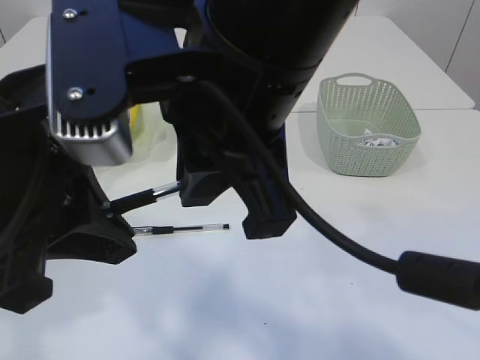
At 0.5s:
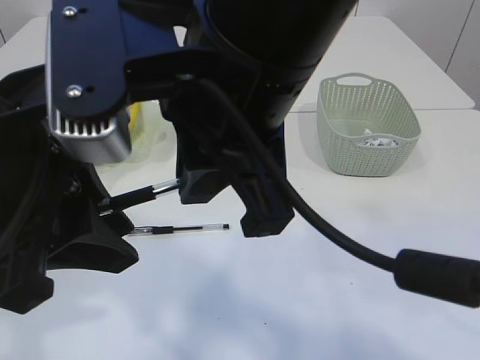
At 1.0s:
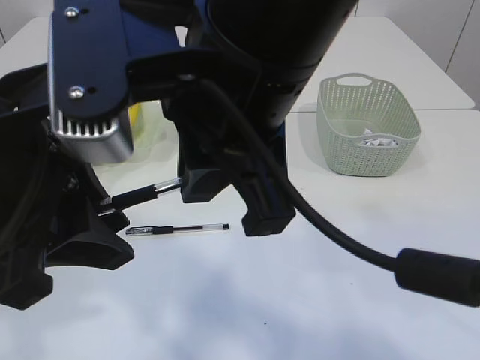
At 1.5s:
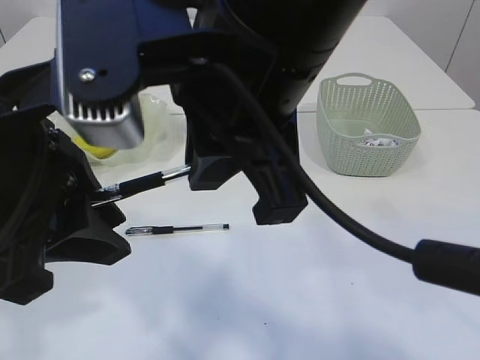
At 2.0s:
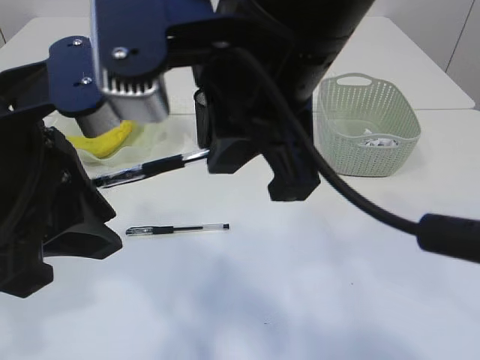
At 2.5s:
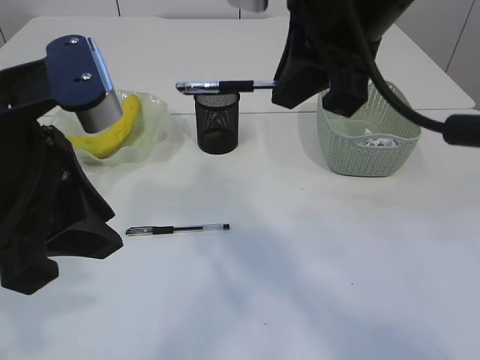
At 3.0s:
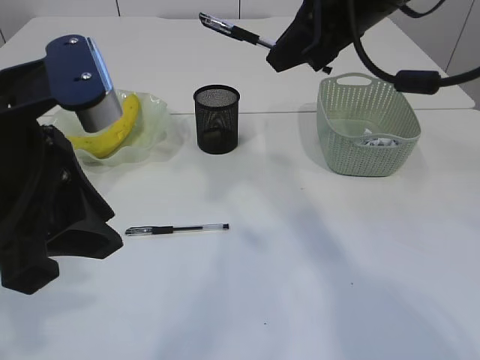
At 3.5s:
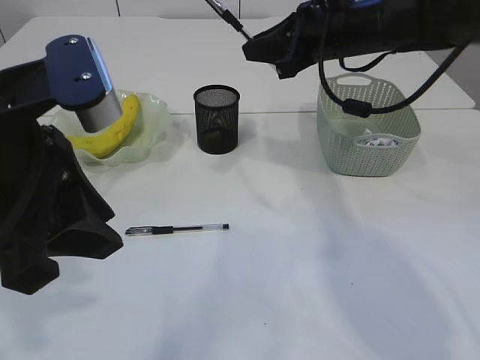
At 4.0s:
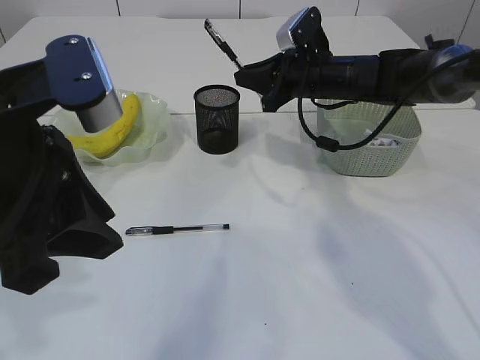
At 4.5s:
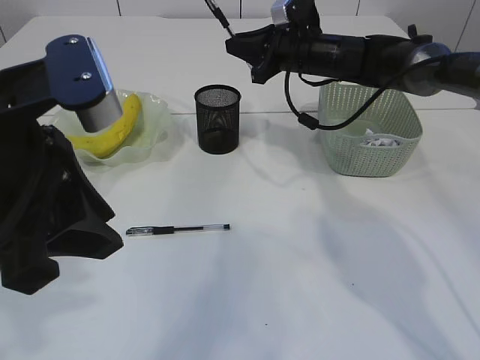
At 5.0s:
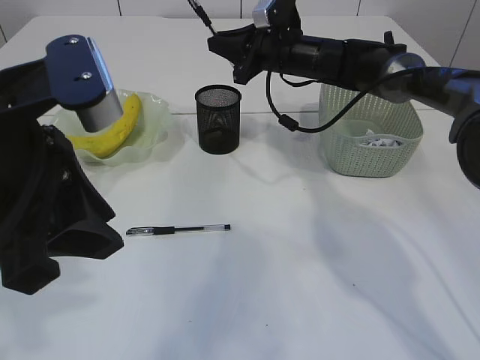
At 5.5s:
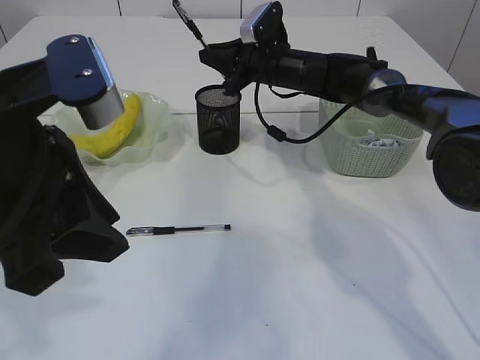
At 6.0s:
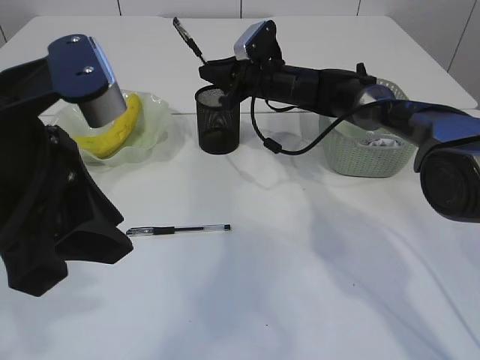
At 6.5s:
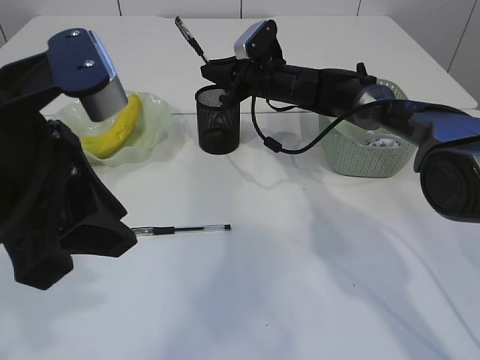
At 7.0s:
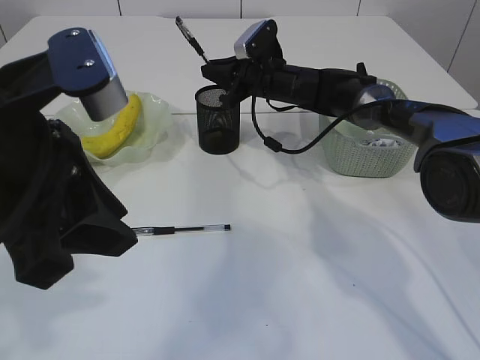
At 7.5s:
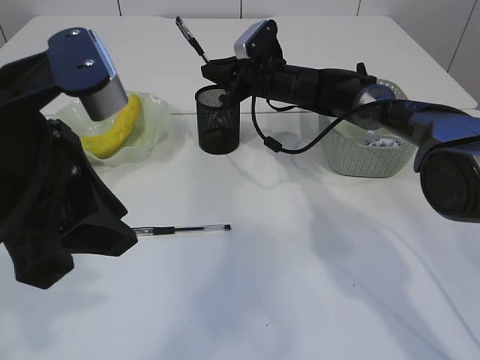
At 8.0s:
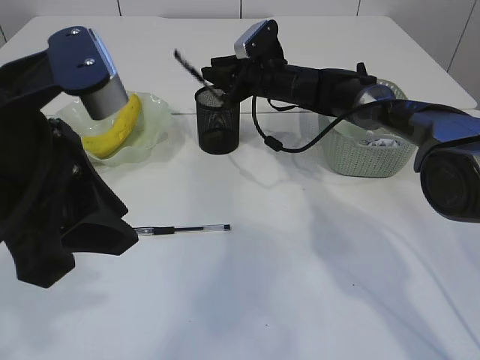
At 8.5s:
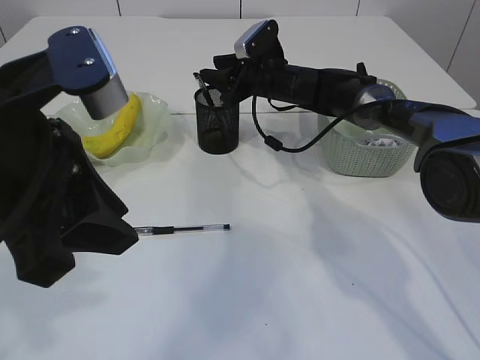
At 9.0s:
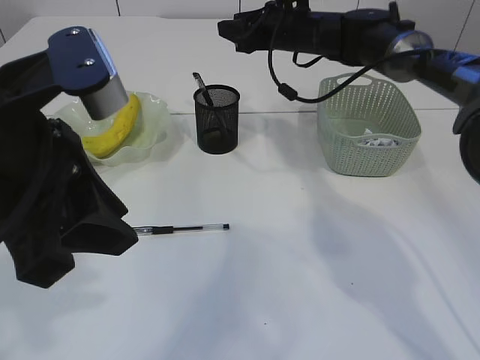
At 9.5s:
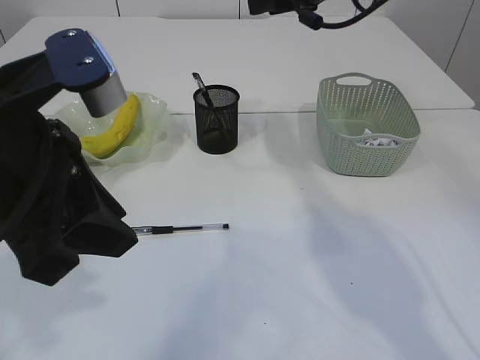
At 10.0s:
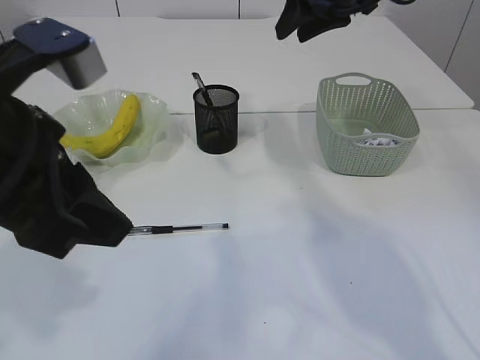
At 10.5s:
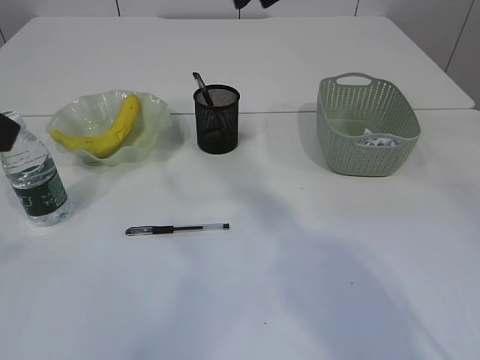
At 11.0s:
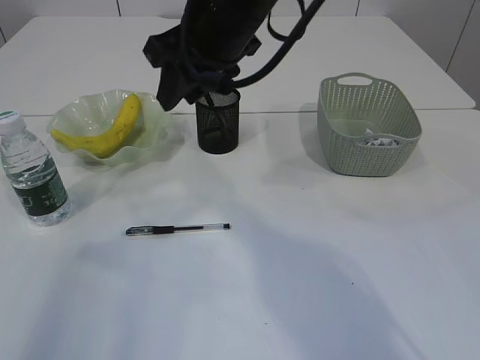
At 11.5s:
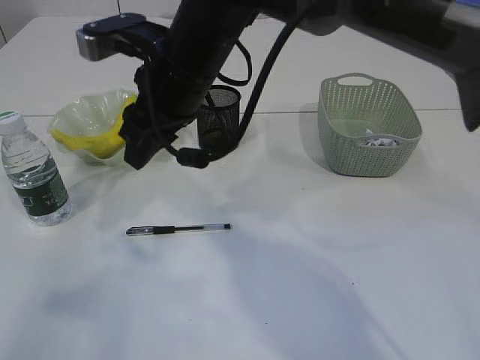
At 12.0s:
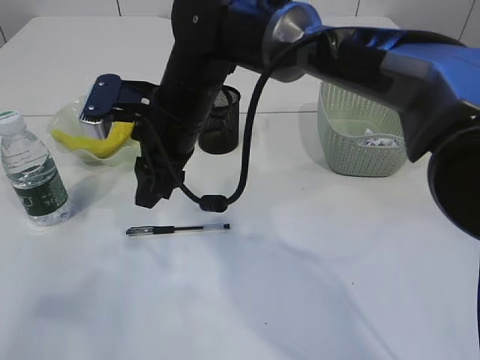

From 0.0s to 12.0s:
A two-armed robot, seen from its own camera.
Step, from 0.0s to 2.0s: transfer the pen to the right arm.
Step, from 2.5s to 8.5s: Place the pen into the pen holder.
From 2.0s to 4.0s: The right gripper moves forward and downward, roughly 30 cm.
From 4.0s to 6.0s: The right gripper moves forward and to the left, approximately 10 cm.
From 6.0s to 8.0s: Both grippers stay put.
From 8.0s to 10.0s: The right gripper goes about 20 cm upward and backward.
From 10.0s to 12.0s: The right gripper goes roughly 25 cm to the left, downward and backward; the left gripper is displaced to the left and backward by approximately 15 cm.

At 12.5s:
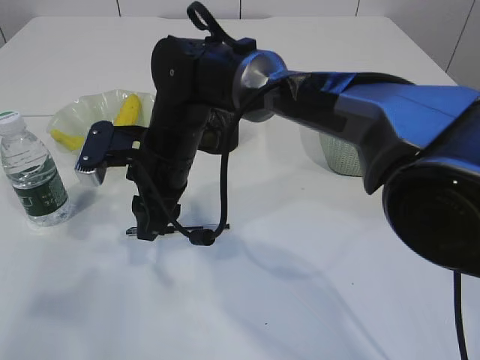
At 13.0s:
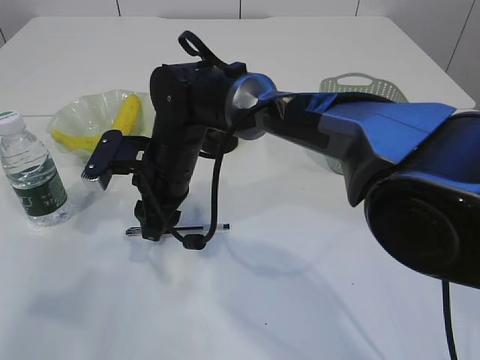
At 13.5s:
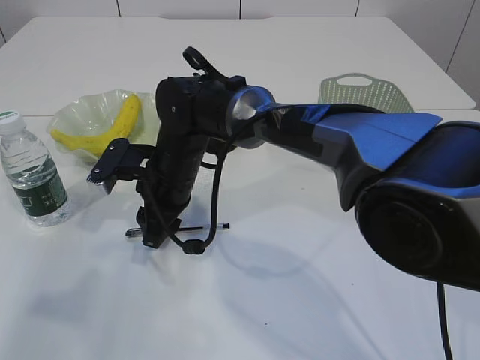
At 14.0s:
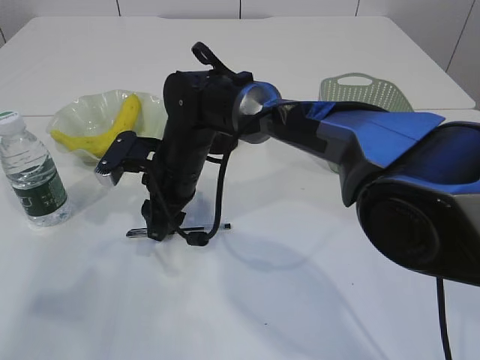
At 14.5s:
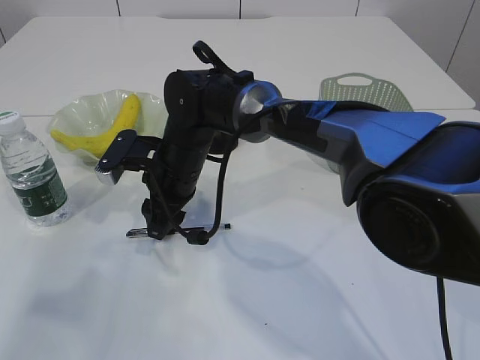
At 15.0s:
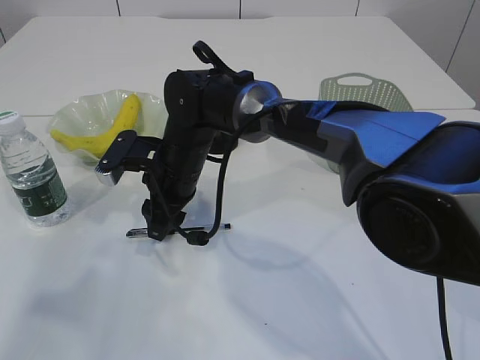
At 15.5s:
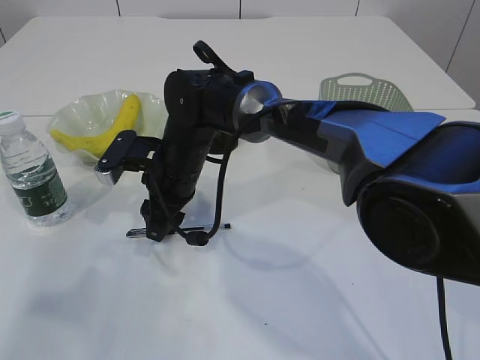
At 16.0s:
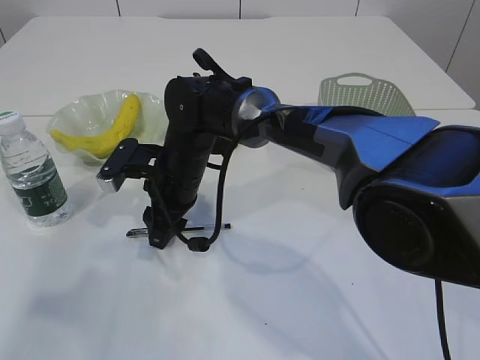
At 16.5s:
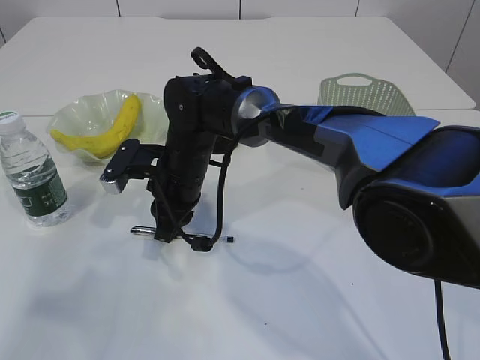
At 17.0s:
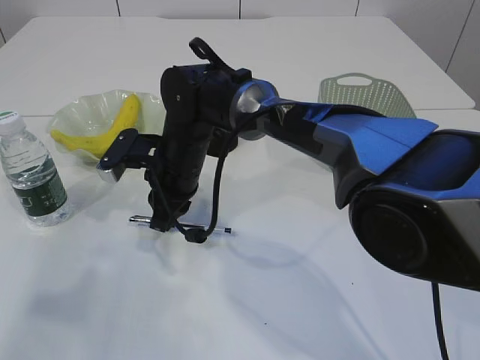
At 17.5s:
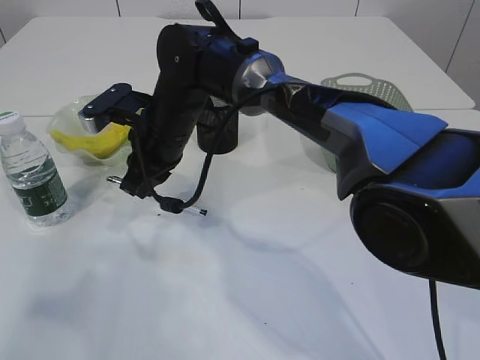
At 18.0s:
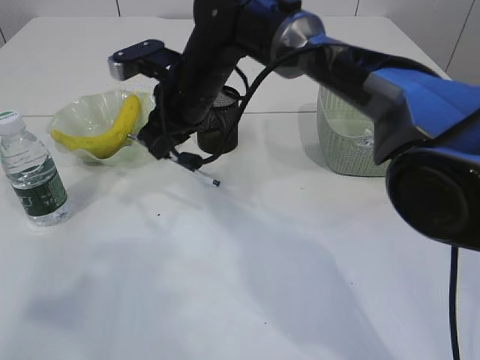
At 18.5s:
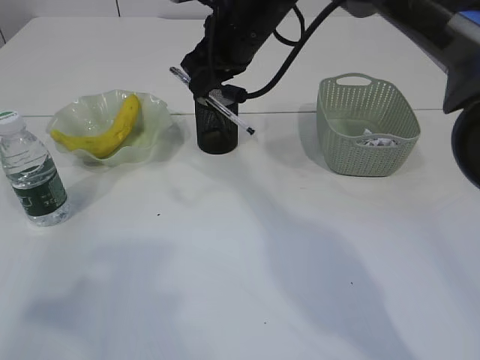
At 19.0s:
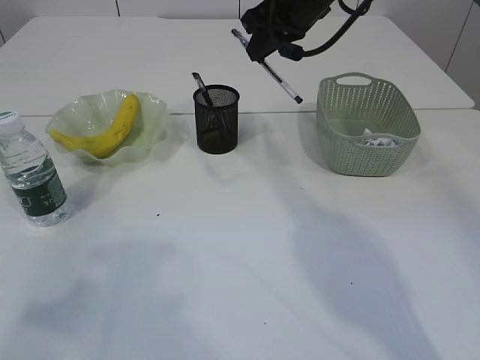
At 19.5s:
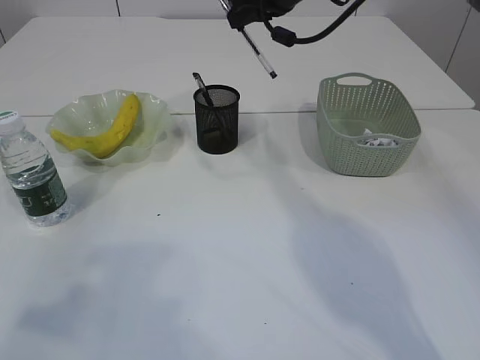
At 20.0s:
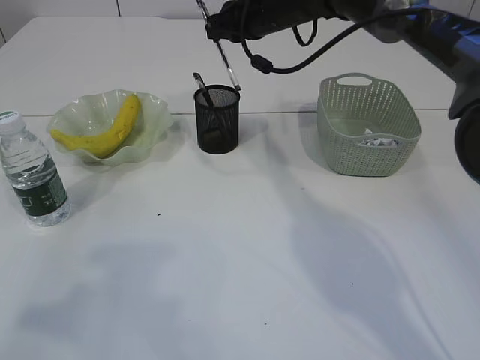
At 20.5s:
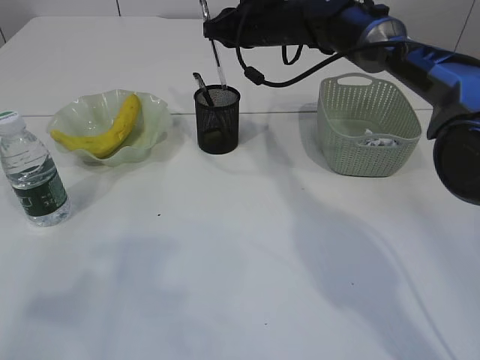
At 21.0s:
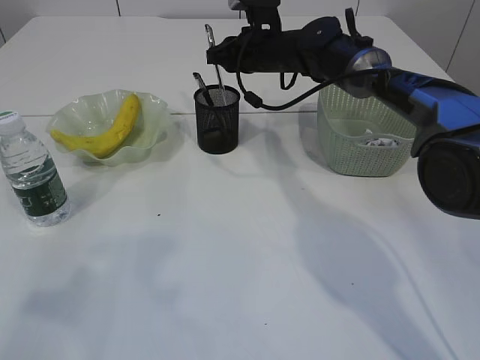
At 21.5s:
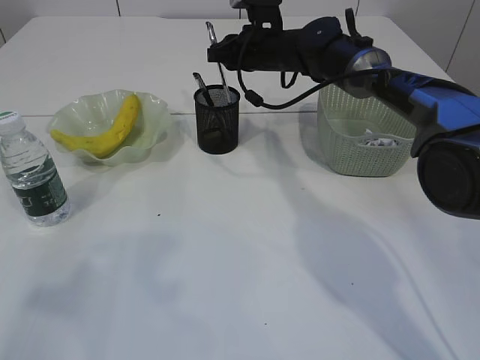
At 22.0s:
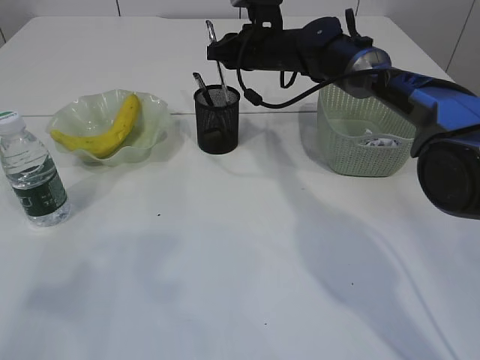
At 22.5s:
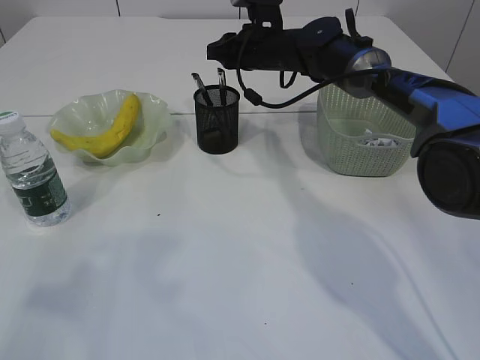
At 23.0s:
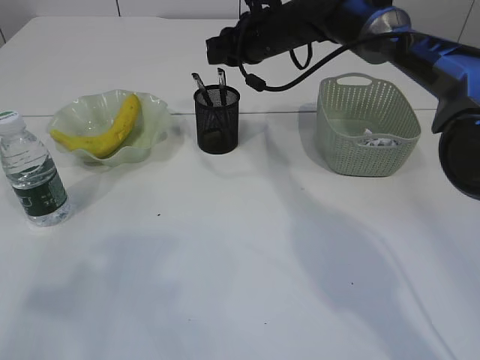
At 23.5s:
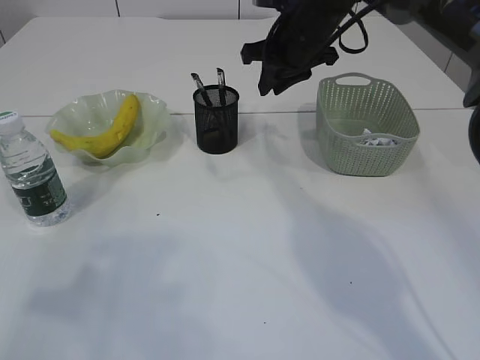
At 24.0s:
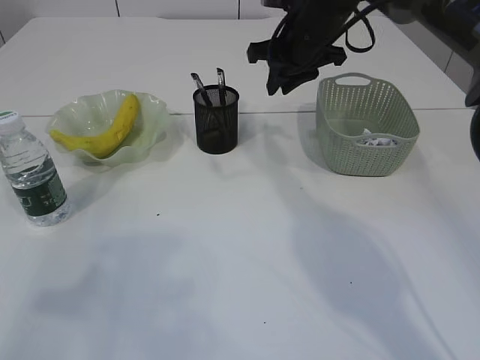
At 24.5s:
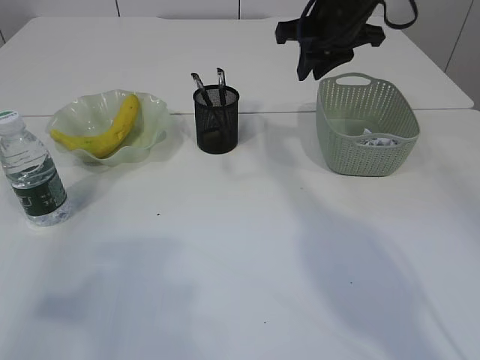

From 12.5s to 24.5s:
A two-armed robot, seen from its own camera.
Step, from 12.5s to 17.5s: Pick up the pen with right arm.
Step, from 18.0s to 23.0s: Place the pen into the pen holder.
From 12.5s to 14.5s: The right gripper shifts by about 5 cm.
From 14.5s to 16.5s: The right gripper closes.
From 16.5s to 18.5s: The right gripper goes about 20 cm upward and to the right.
From 18.5s to 20.5s: The right gripper travels forward by some 10 cm.
From 20.5s to 22.5s: The grippers make only small movements.
From 22.5s to 24.5s: The right gripper is displaced upward, backward and to the right by approximately 15 cm.

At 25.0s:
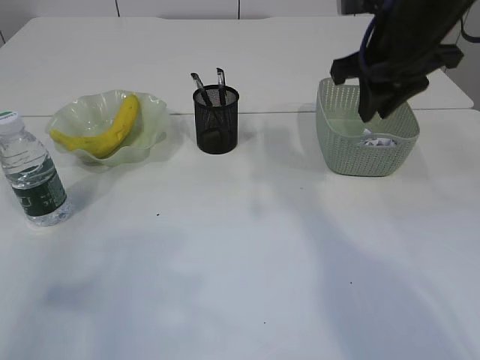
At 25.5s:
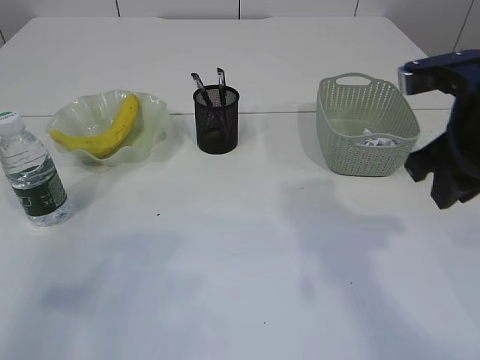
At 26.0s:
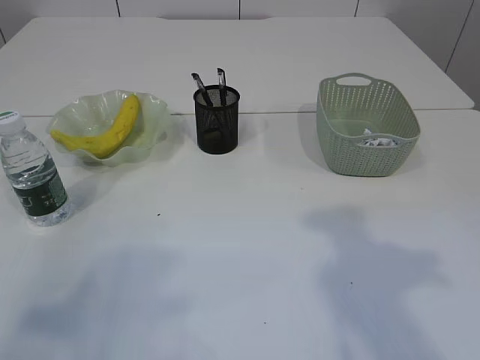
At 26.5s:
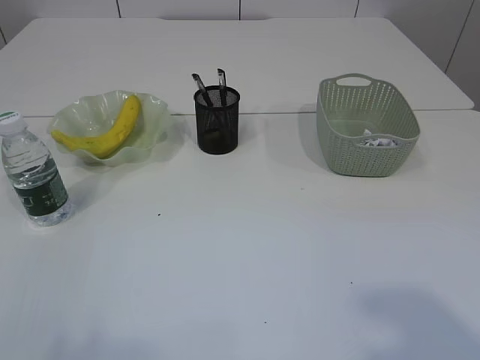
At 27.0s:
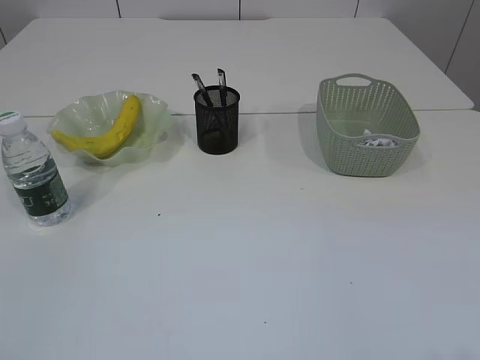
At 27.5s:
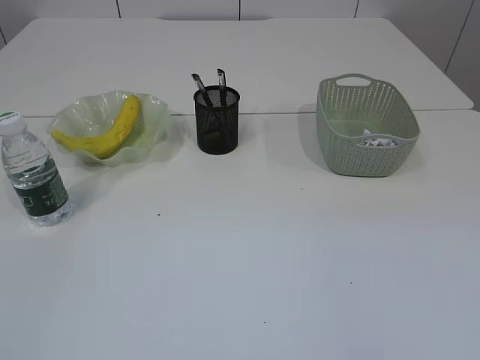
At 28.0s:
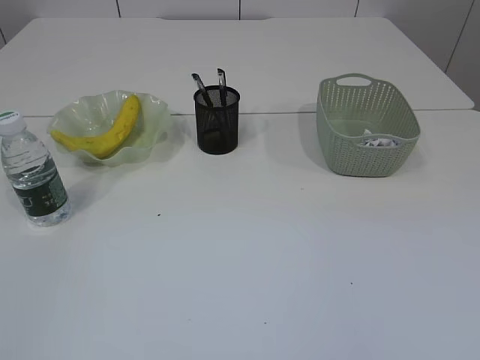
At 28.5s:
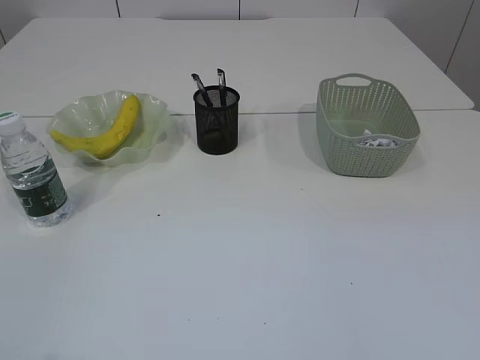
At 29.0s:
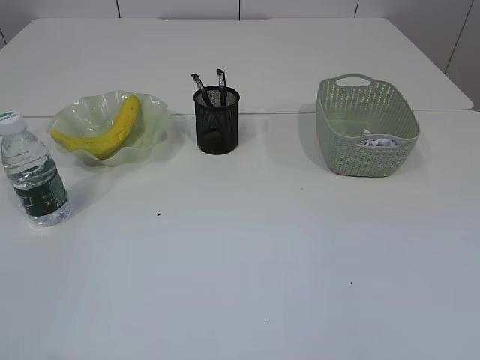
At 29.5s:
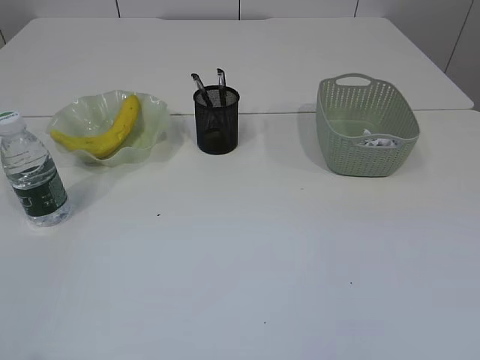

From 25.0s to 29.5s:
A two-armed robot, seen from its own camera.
From 25.0s to 27.0s: The right gripper travels backward by approximately 40 cm. Meanwhile the left gripper is displaced backward by about 15 cm.
